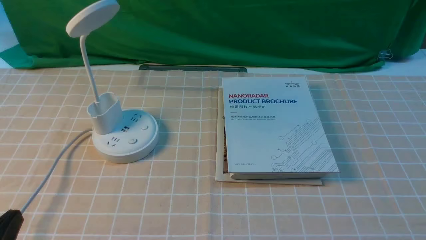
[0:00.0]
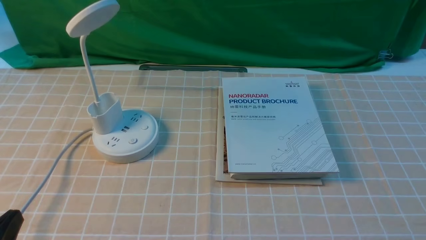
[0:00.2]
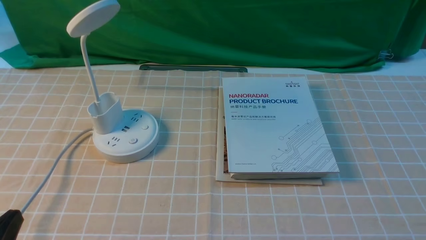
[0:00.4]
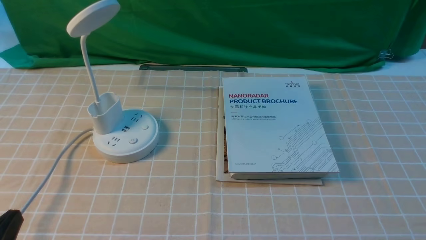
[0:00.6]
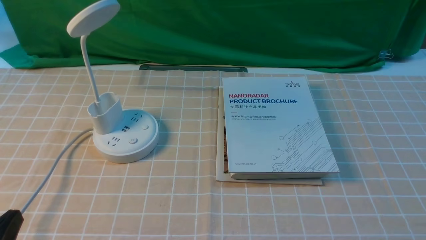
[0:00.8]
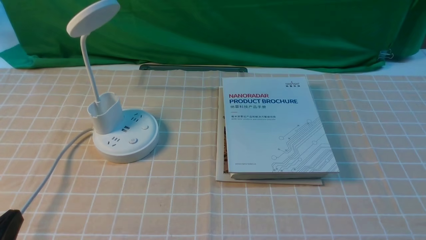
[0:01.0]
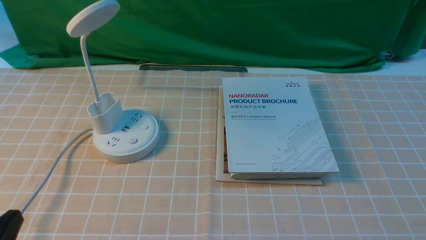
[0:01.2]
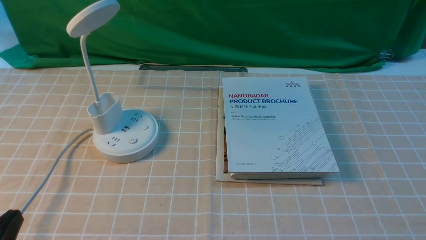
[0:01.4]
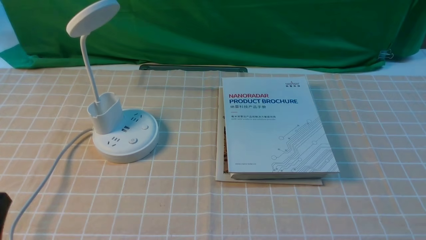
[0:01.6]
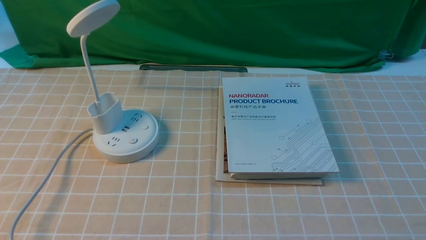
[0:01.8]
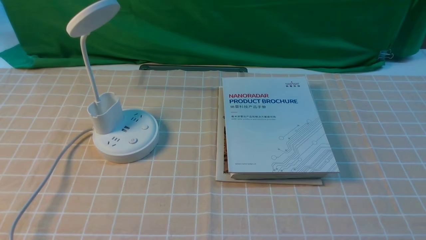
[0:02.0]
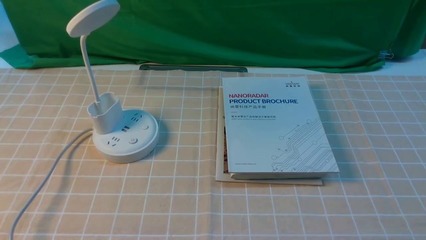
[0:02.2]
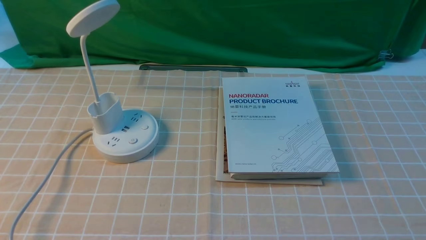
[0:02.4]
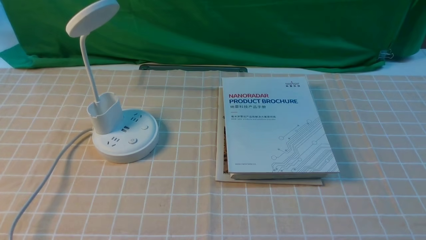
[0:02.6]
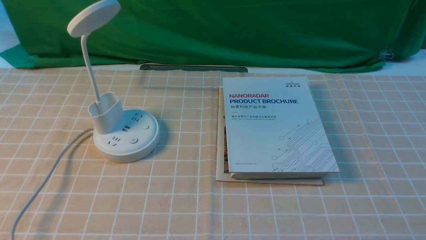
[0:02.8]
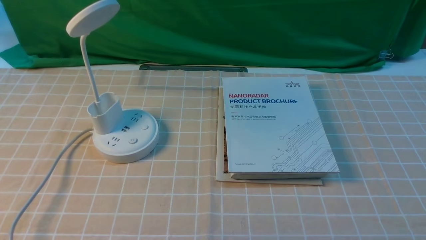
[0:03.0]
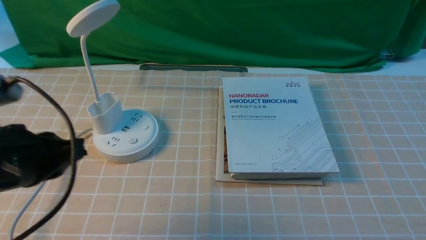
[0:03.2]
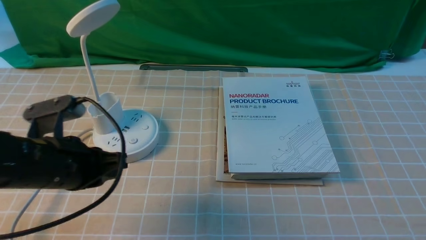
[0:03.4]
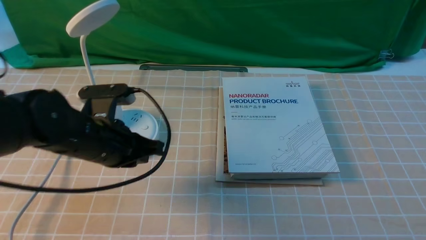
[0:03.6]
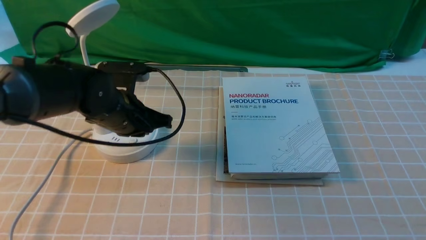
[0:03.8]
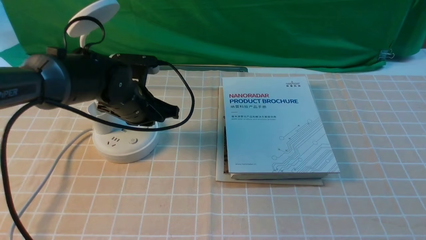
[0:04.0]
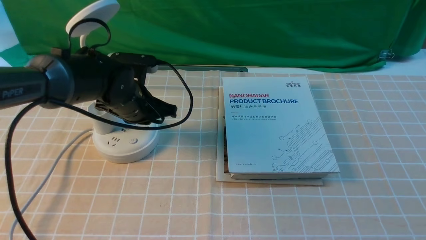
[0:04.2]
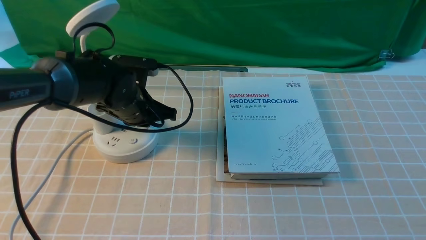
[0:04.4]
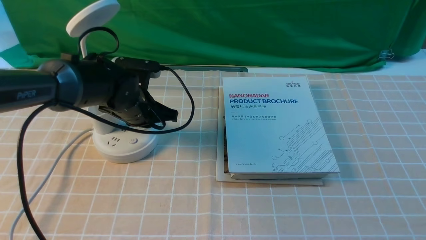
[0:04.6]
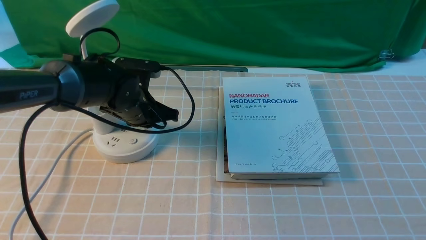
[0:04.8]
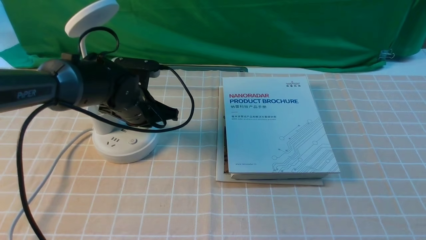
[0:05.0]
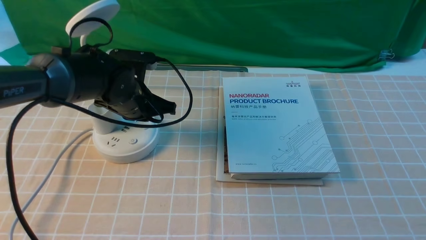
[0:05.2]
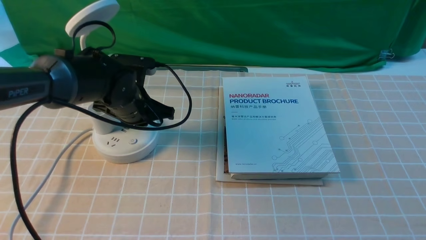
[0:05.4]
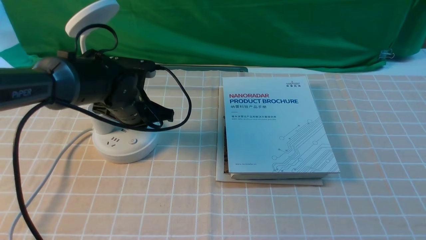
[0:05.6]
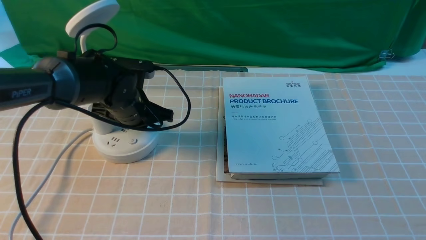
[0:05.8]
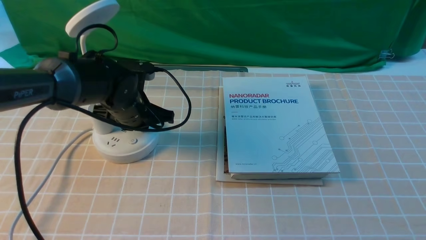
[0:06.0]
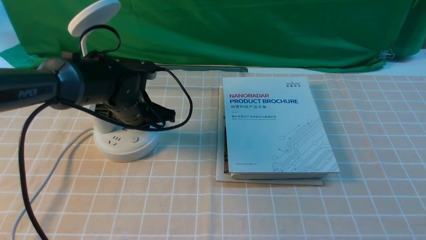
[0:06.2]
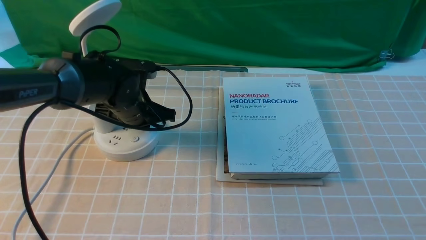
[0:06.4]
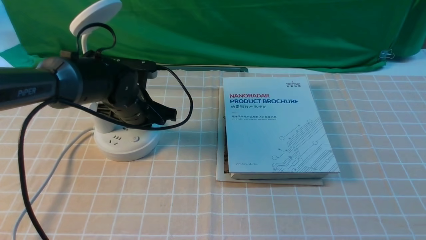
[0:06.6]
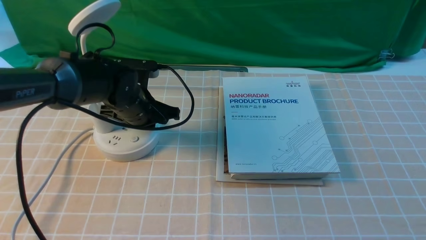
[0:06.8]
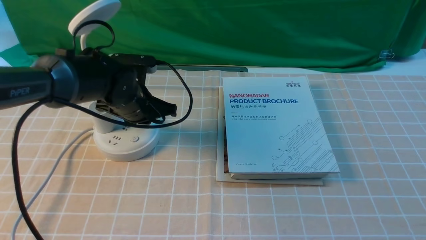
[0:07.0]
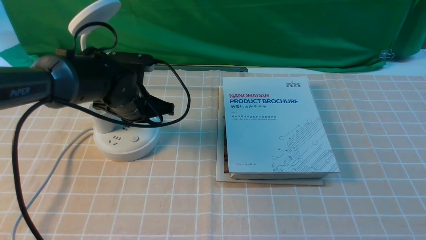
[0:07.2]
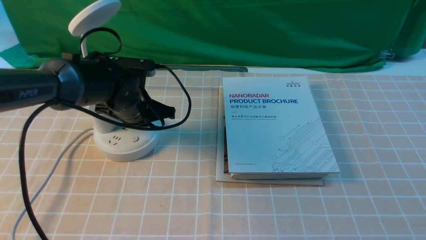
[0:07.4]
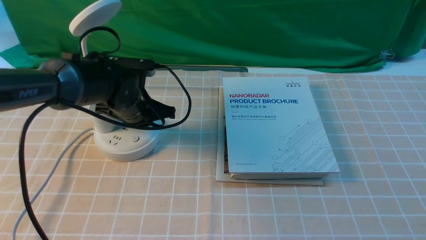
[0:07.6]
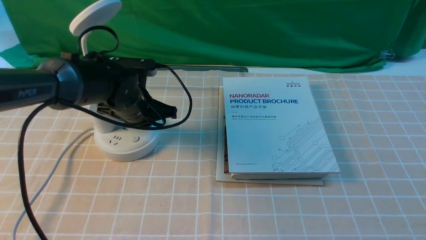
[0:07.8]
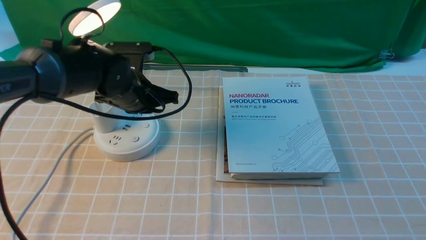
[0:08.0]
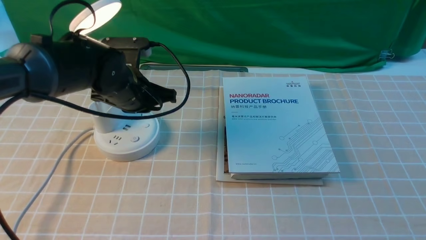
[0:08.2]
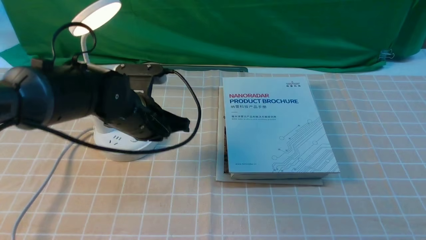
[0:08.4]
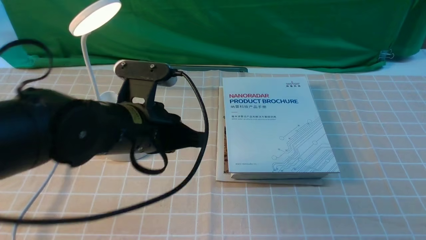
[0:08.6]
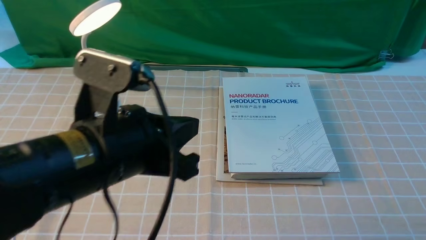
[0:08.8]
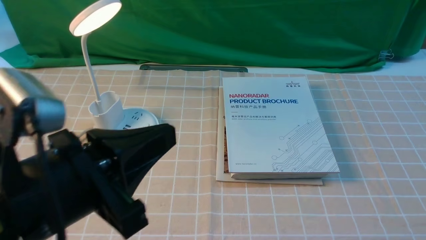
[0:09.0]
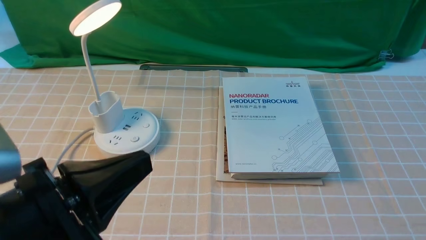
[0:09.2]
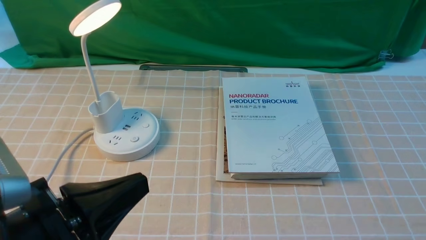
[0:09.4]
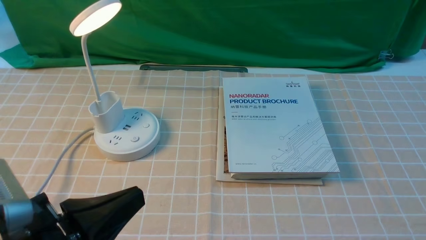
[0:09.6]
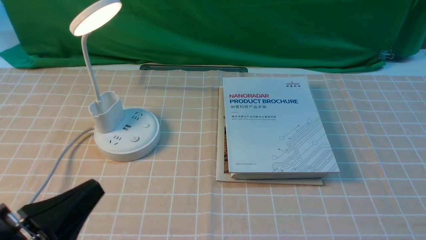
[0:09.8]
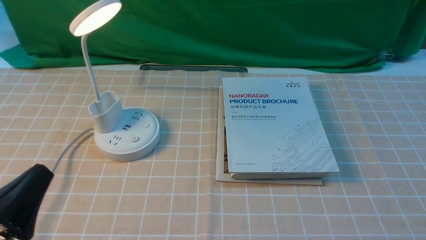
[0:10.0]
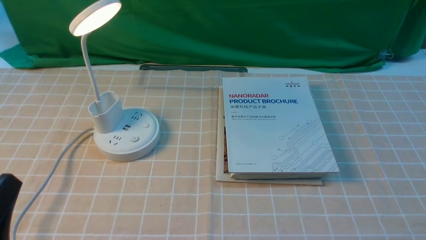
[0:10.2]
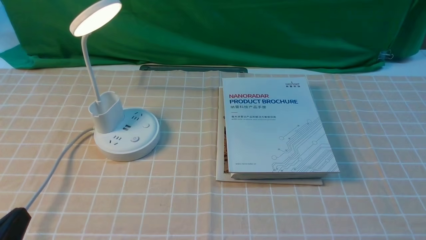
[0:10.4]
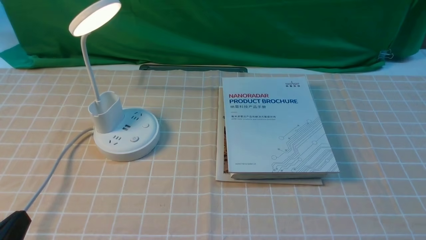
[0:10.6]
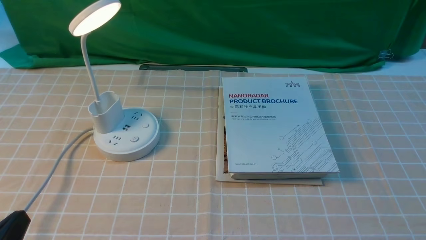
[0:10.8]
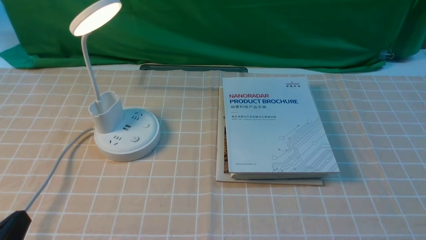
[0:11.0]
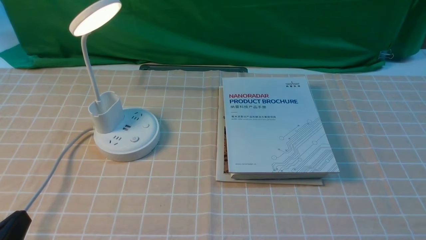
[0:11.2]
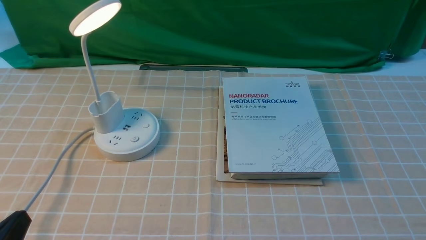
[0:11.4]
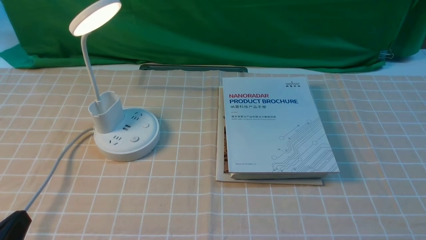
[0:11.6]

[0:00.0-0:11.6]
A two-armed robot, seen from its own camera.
Step, 0:00.0 to 0:08.6: use the left arm to press the button switch on the lamp holder.
0:00.0 to 0:01.4: Both grippers stay put.
0:01.4 to 0:02.8: The left gripper travels upward by about 15 cm.
0:02.8 to 0:04.4: The left gripper moves forward and downward, about 35 cm, and closes its fingers.
0:04.4 to 0:05.8: The left gripper opens up.
0:05.8 to 0:07.2: Neither gripper changes place.
0:07.2 to 0:08.8: The left gripper goes about 25 cm backward and upward.
0:08.8 to 0:10.2: The left gripper moves to the left, backward and downward, about 20 cm.
0:10.2 to 0:11.6: There are only small adjustments of the grippers.

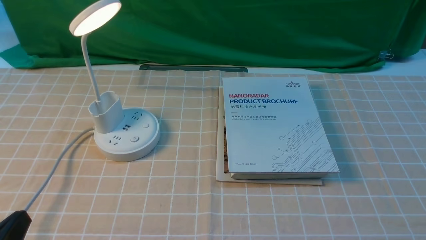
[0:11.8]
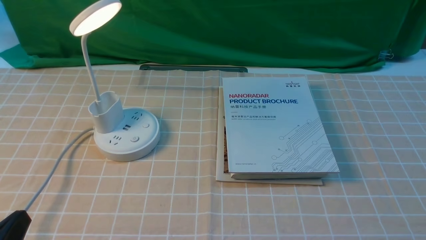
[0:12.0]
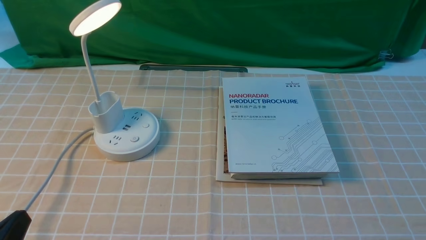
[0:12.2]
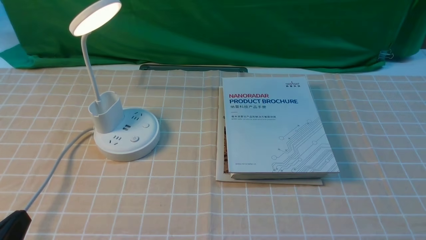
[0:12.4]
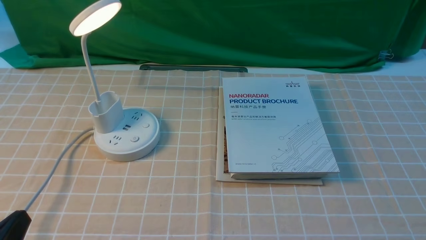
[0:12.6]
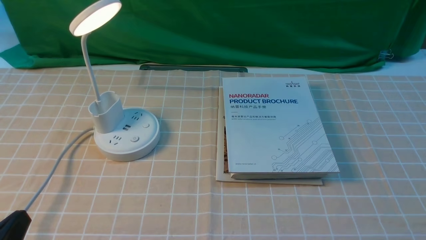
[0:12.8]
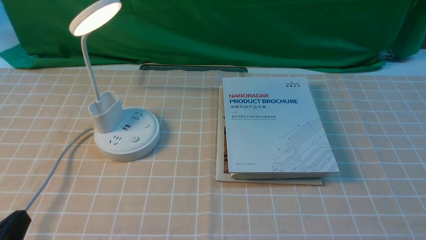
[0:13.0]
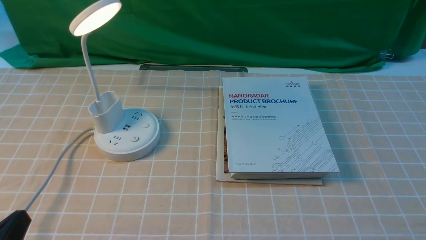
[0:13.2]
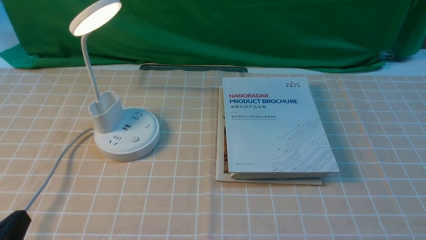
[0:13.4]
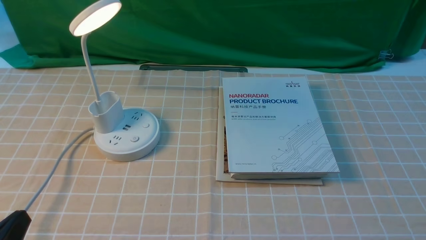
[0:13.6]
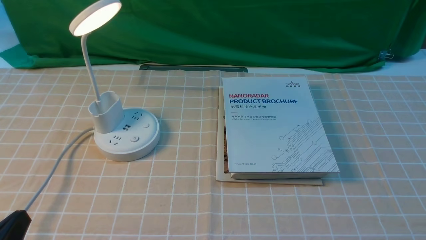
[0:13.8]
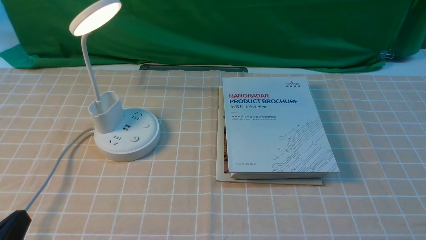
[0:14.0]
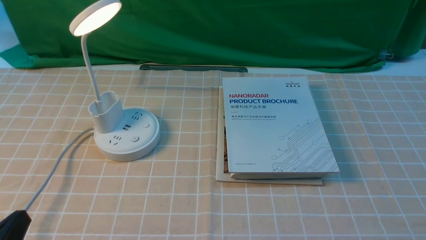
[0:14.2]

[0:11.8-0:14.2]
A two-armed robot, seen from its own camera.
0:11.8 to 0:14.2: Both grippers stay put.
